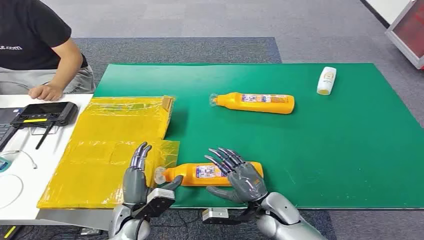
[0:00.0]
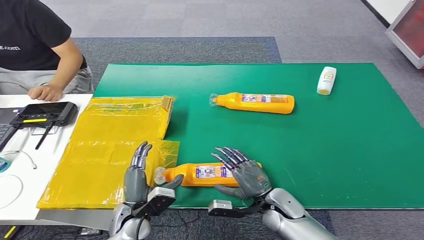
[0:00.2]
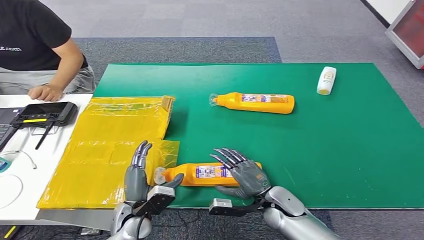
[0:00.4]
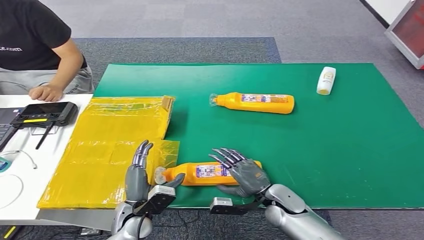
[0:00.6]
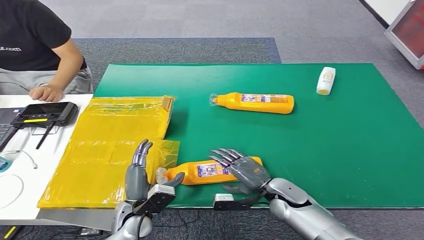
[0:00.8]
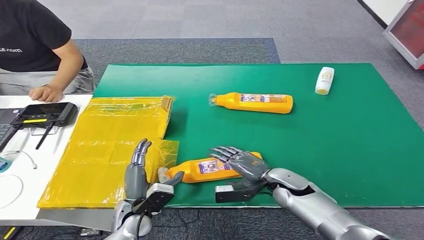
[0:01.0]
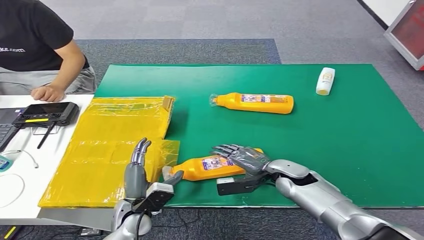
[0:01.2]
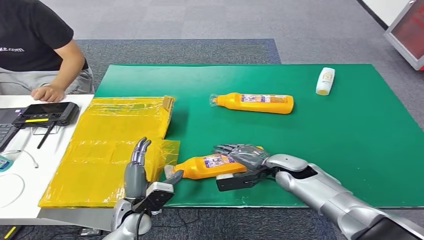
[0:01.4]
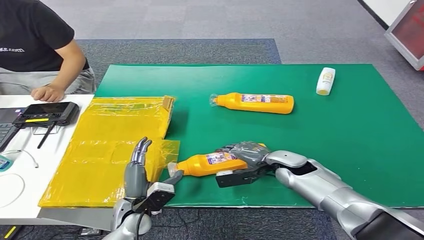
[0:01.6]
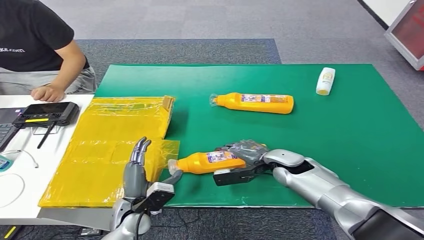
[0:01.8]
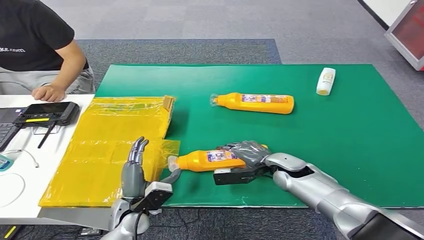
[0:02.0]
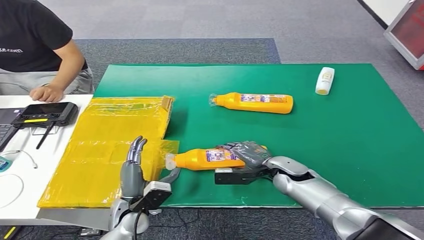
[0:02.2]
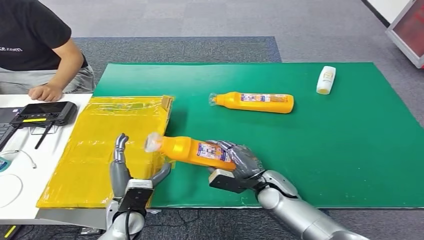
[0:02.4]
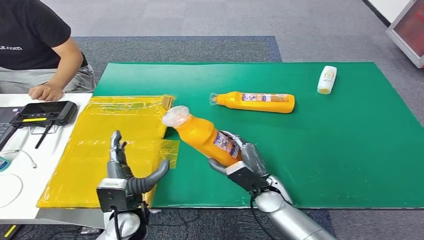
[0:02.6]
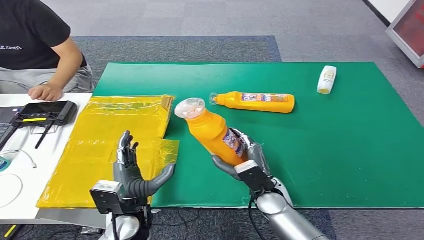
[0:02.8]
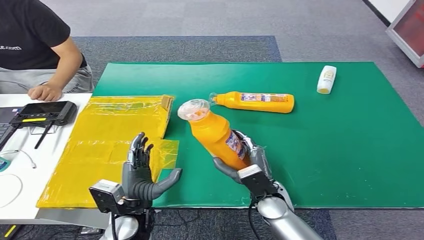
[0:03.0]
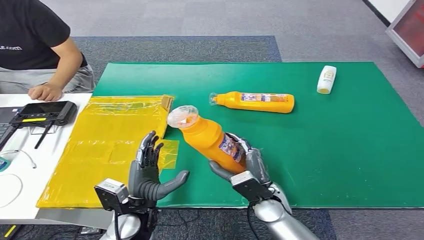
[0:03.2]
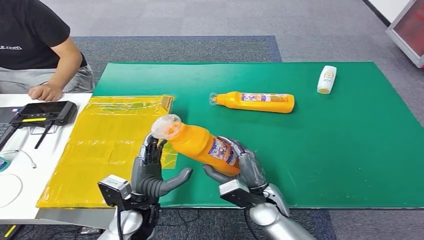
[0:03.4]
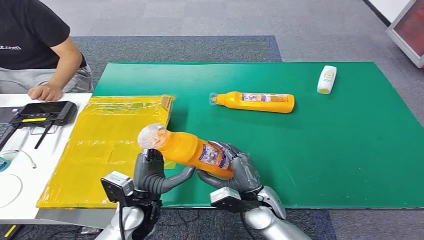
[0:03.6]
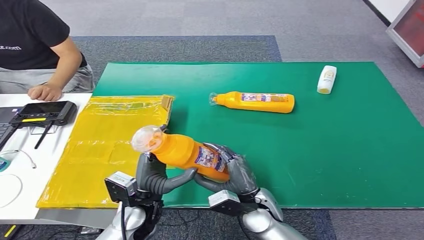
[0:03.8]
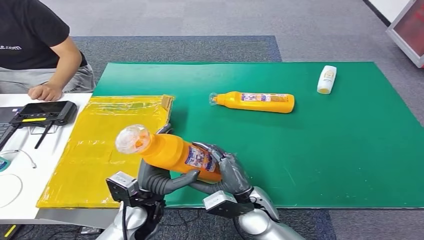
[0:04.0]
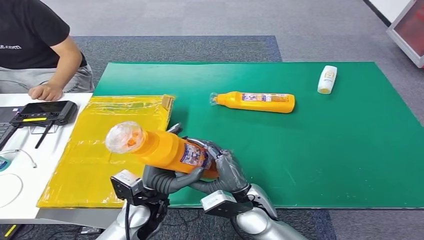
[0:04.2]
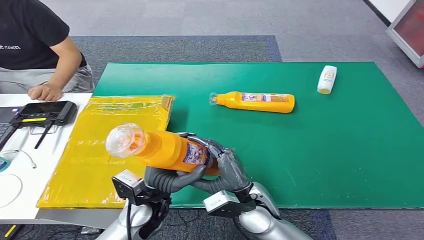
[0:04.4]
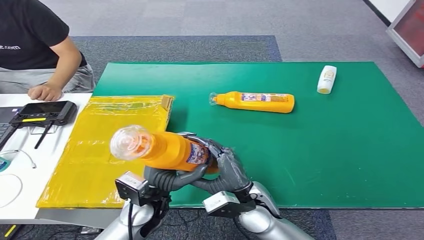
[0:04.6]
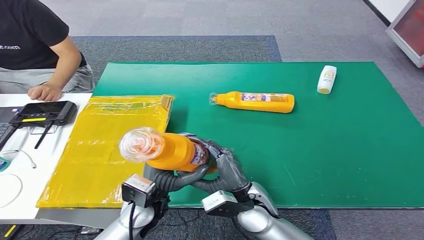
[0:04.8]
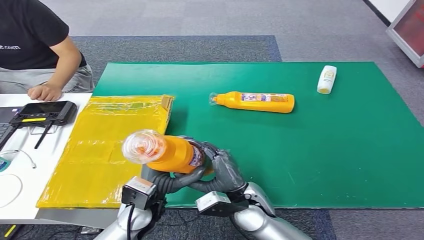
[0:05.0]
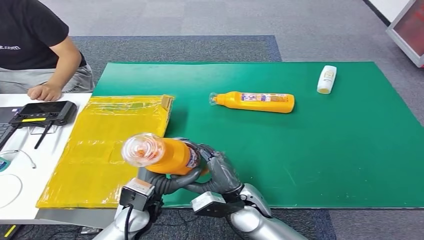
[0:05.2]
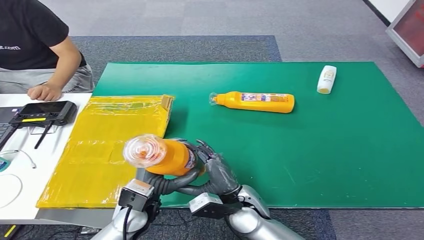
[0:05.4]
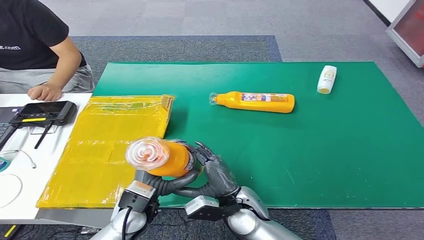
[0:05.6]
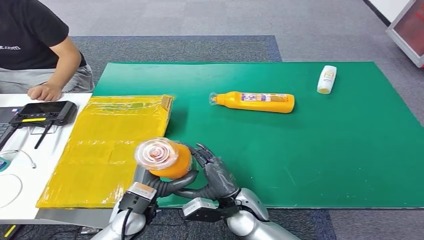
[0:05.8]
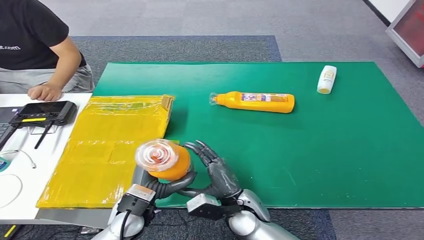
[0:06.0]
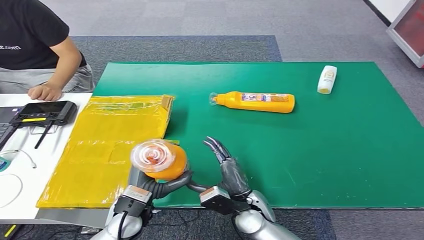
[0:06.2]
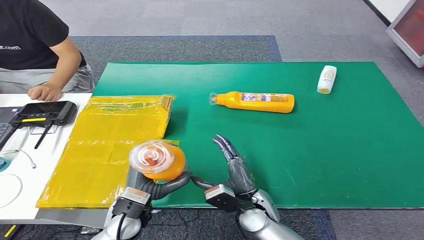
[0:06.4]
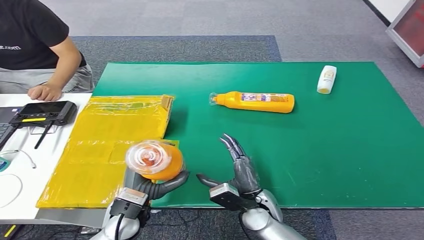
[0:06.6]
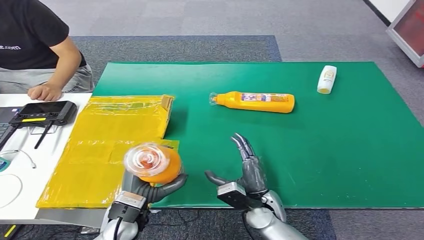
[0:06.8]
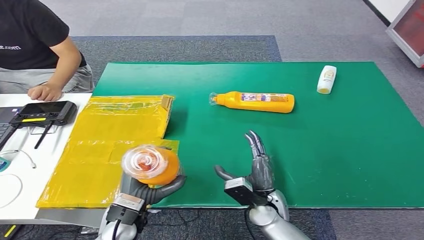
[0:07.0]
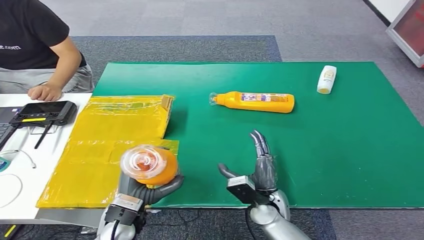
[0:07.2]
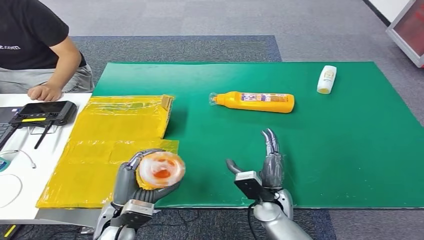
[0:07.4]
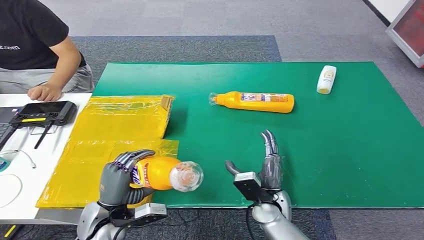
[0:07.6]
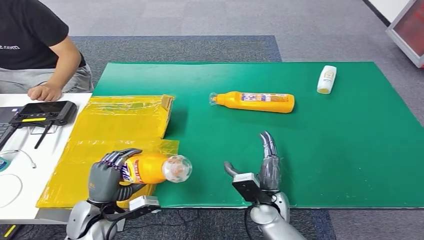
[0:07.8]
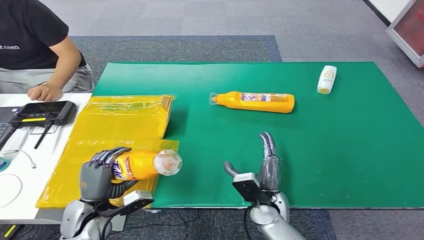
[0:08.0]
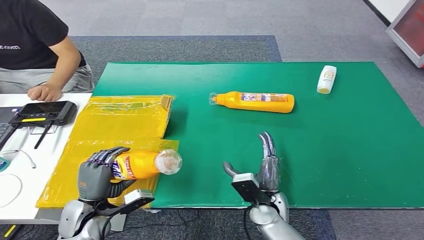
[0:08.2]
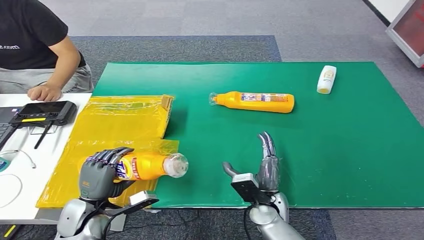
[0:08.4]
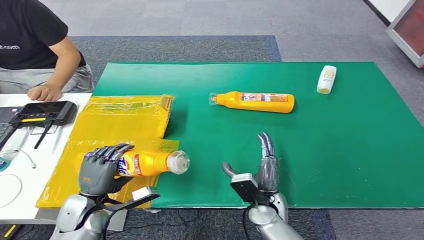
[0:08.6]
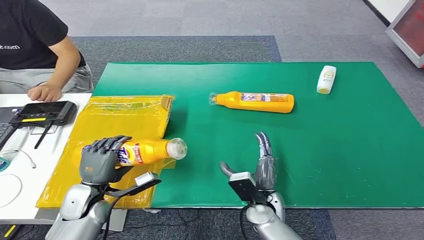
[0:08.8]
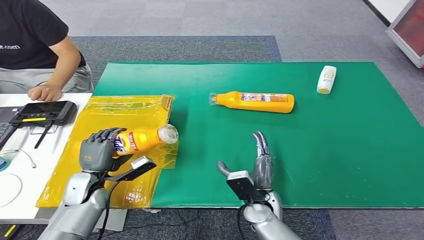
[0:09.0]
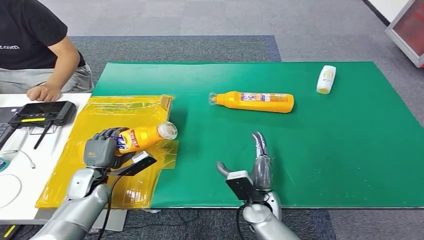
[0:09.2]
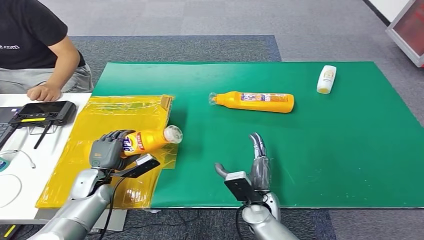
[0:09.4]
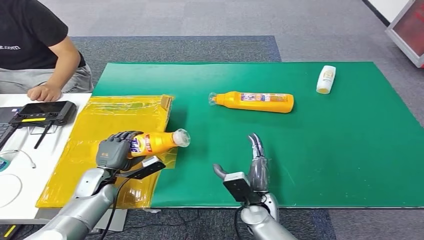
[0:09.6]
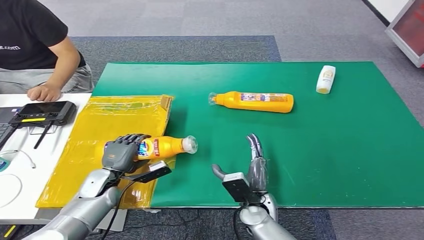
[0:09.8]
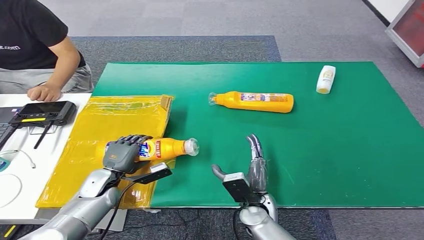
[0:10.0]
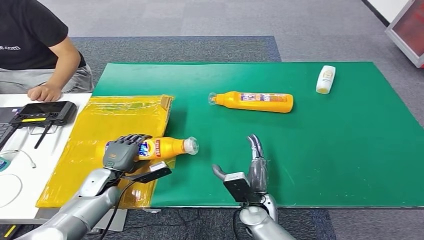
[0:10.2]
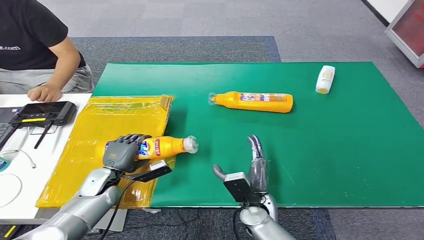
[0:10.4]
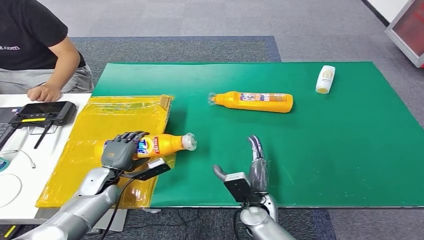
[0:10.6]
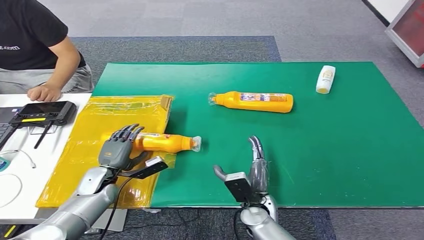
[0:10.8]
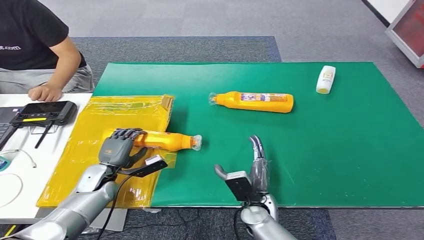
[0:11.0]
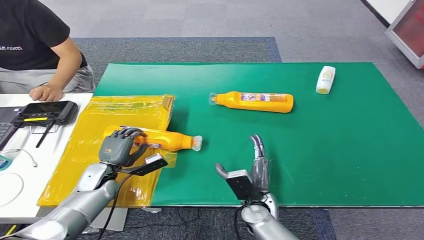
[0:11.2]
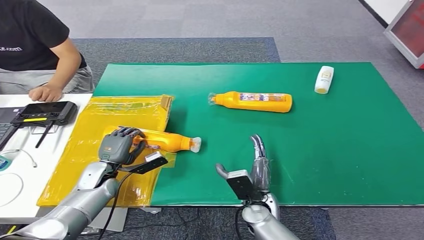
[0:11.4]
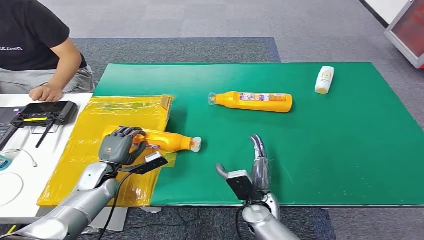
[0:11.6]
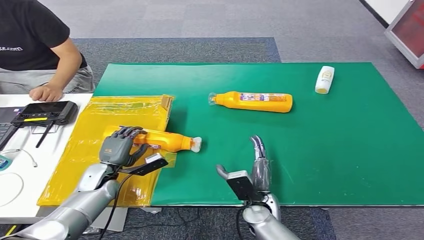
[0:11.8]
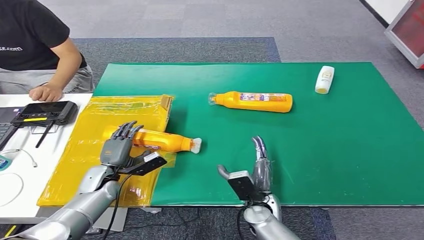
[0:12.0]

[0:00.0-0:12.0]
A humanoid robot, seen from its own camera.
Step, 0:00.0 to 0:03.0: Pick up the bottle from the table.
0:03.0 to 0:04.4: The right hand moves to the left, some 5 cm.
0:04.4 to 0:06.0: The right hand heads downward, covering some 5 cm.
0:06.0 to 0:07.6: The right hand moves to the right, about 5 cm. The left hand travels to the left by approximately 5 cm.
0:07.6 to 0:09.0: The left hand moves forward and to the left, roughly 10 cm.
0:09.0 to 0:12.0: The hands move only a little.

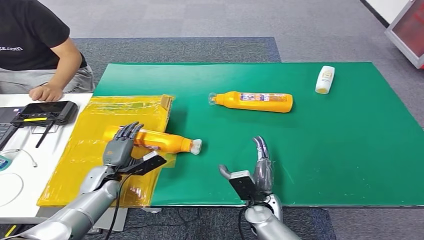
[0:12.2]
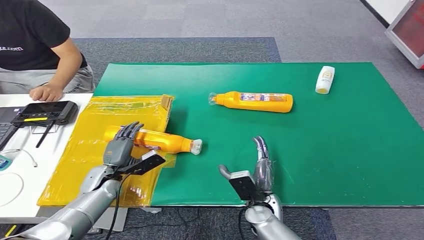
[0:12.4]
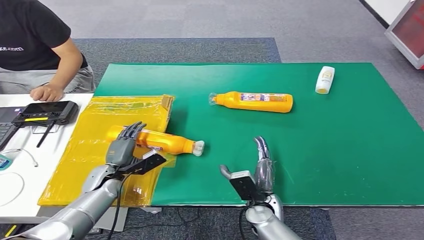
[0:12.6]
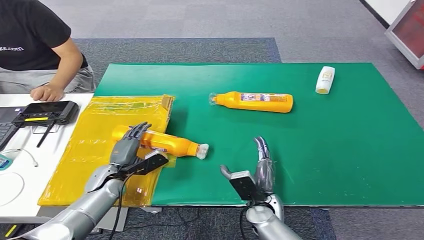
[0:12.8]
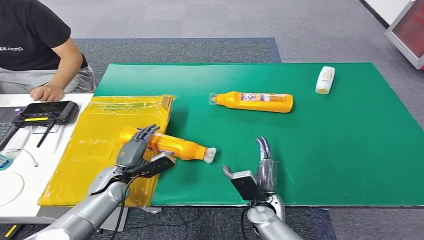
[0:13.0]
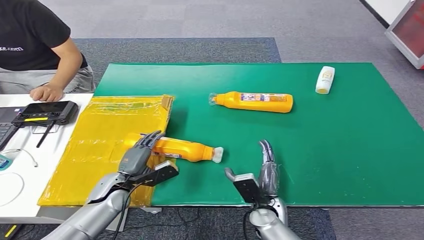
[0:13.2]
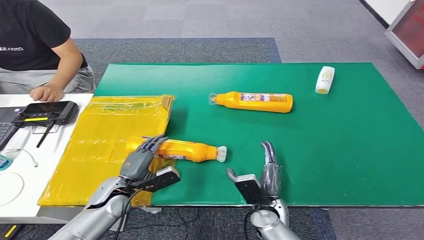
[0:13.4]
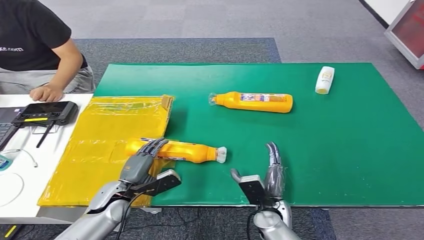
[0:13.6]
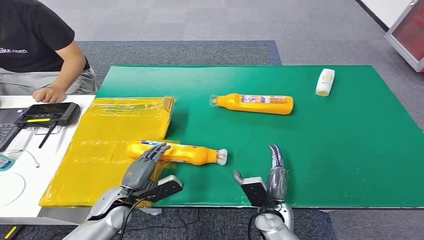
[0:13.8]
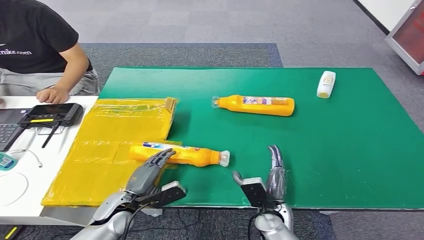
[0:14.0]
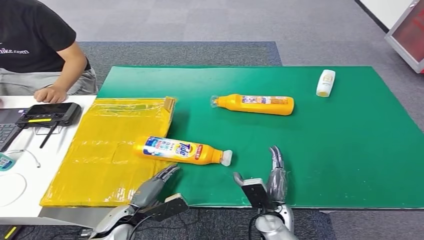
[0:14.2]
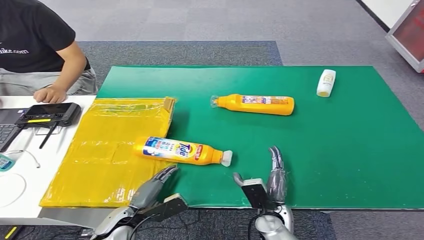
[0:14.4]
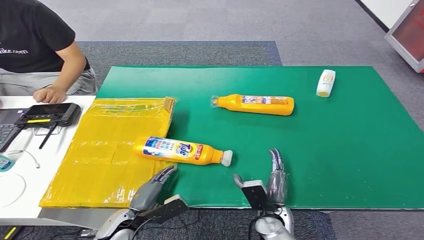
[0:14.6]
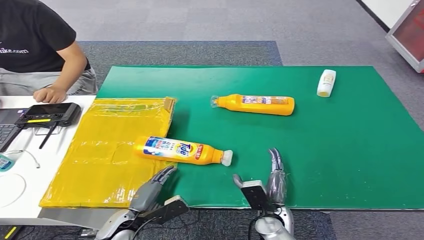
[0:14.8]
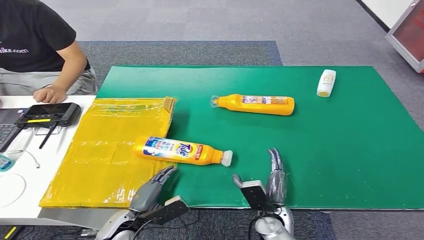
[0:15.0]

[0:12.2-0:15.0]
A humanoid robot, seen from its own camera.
Step, 0:12.2 to 0:15.0: Turn the bottle to the front side.
0:12.2 to 0:13.6: The left hand shifts about 5 cm backward.
0:13.6 to 0:15.0: The left hand shifts some 10 cm backward.
